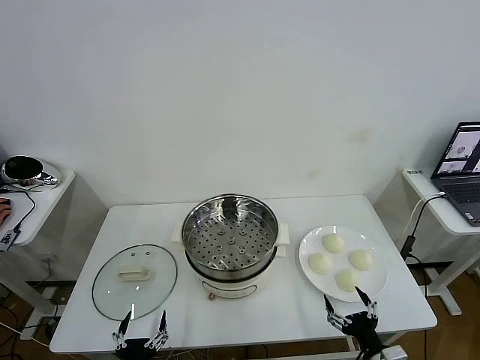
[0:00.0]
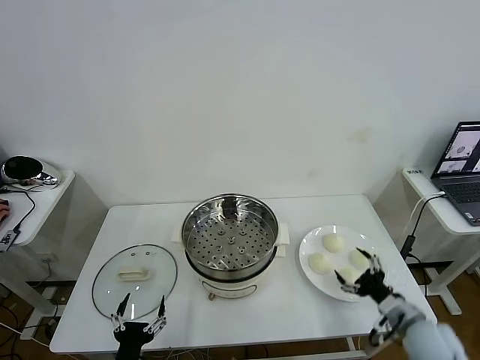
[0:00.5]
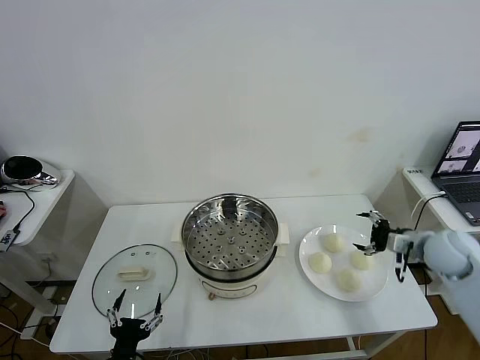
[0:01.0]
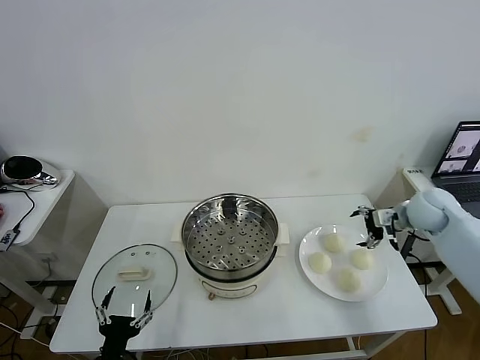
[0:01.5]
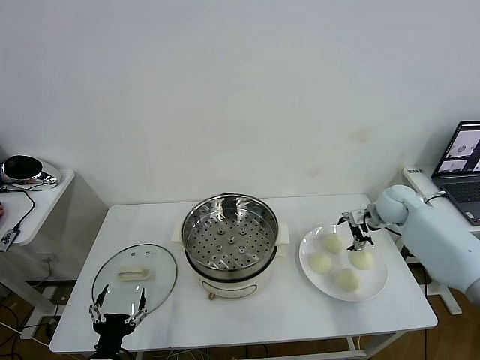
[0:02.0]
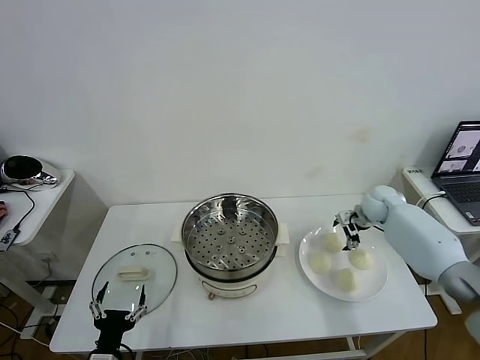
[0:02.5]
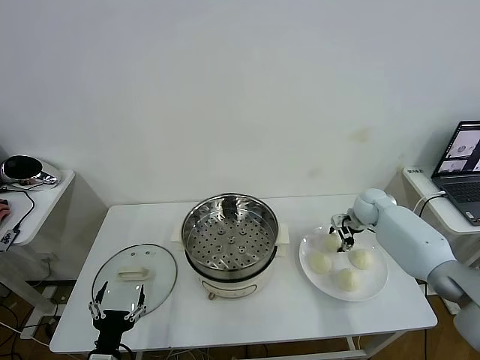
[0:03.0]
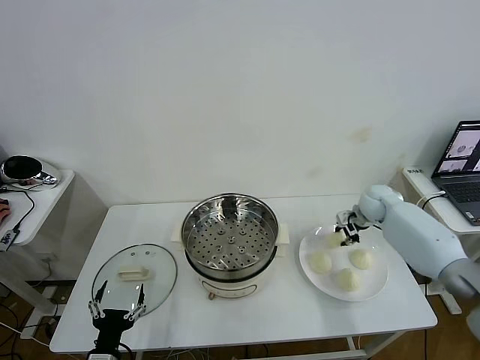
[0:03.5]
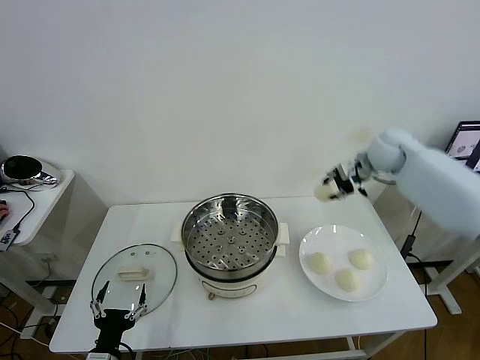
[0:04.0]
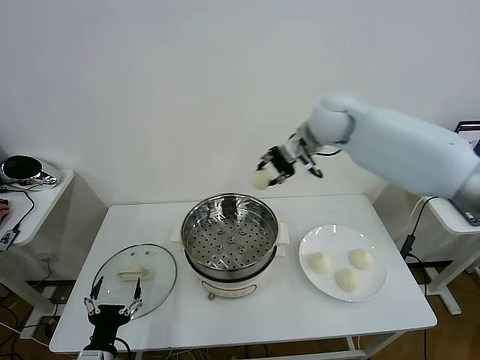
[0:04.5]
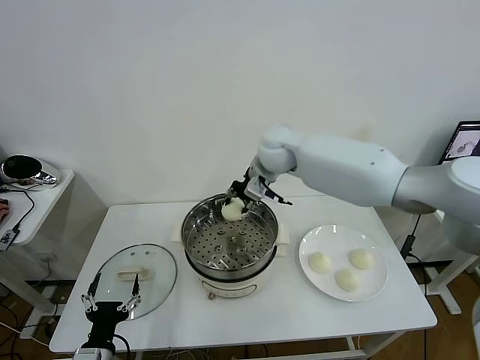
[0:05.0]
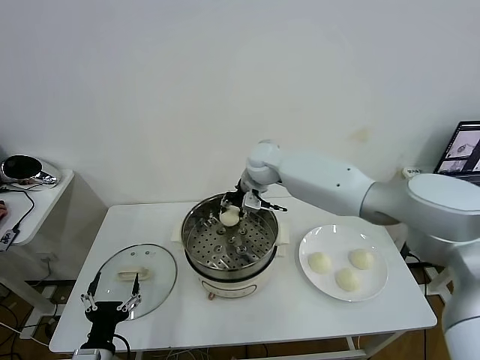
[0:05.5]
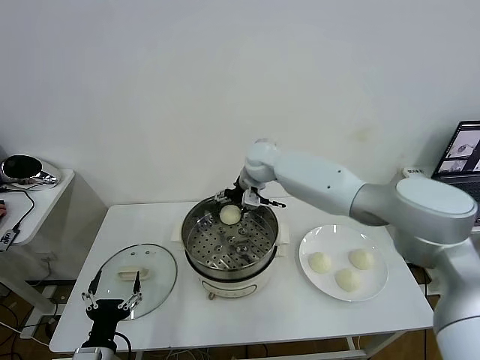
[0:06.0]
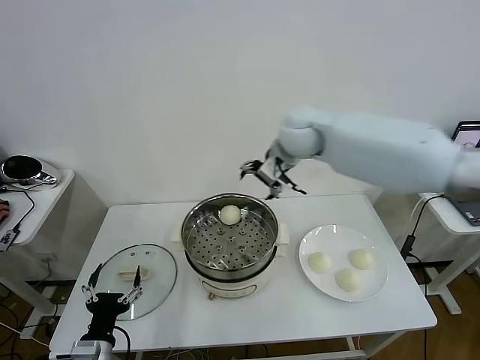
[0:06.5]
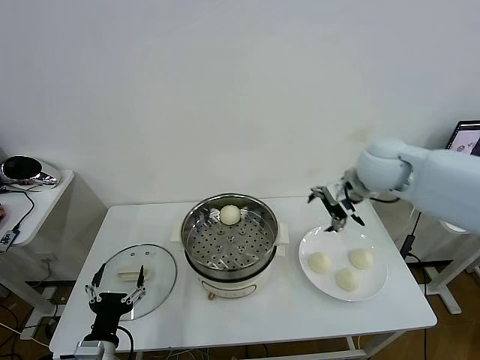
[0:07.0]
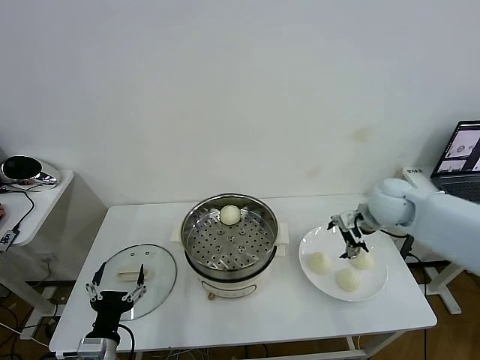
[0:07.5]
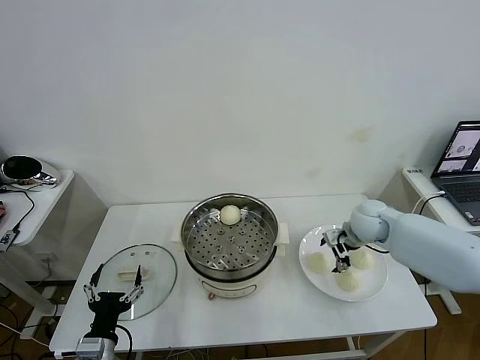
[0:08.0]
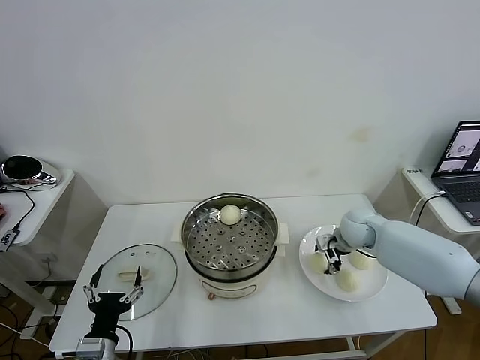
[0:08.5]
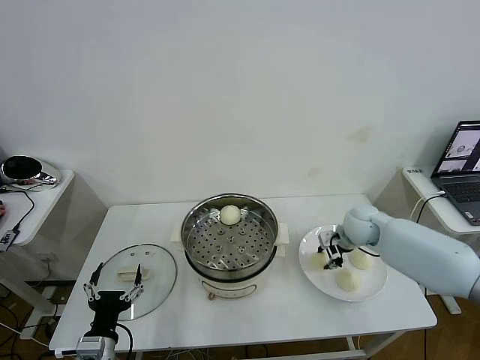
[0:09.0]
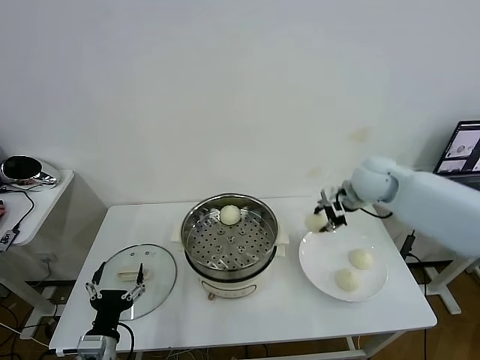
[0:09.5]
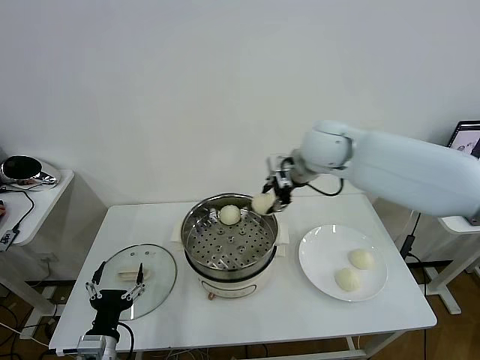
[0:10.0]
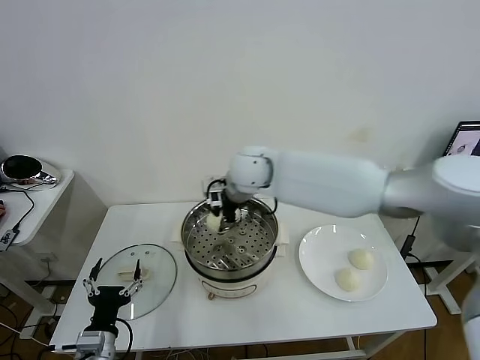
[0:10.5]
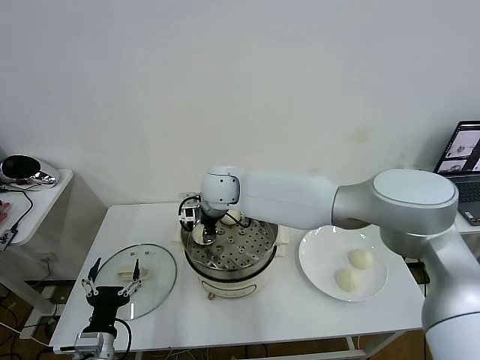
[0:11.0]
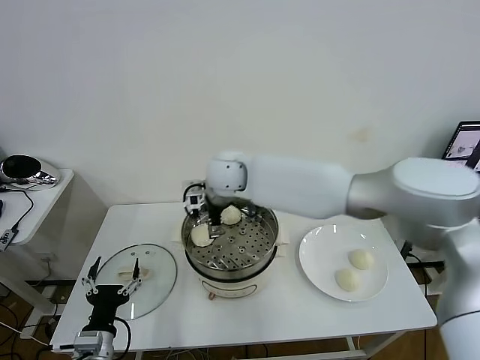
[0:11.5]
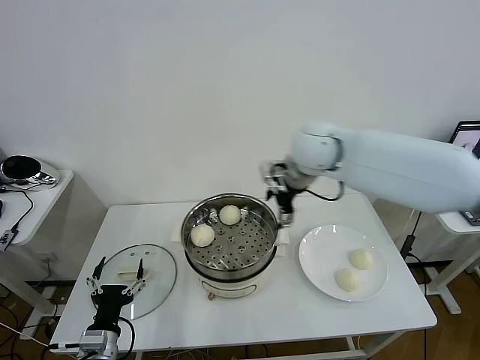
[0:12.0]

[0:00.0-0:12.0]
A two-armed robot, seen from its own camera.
Task of the whole recording: take steamed baozi put them in steamer then cover it.
Step, 0:00.0 to 0:03.0: Grasp the baozi in the plate with right gripper.
Step, 0:03.5 to 0:05.5: Place the baozi on the steamer with right gripper.
Step, 0:06.0 to 0:08.5: Grasp the baozi in the plate with right gripper.
Step, 0:09.0 to 0:11.0: Place the baozi on the steamer with right gripper.
0:02.0 to 0:04.0: The right gripper heads upward and to the left, covering roughly 20 cm, and closes.
0:04.0 to 0:06.0: The right gripper travels to the left by roughly 25 cm, and opens.
0:06.0 to 0:08.0: The right gripper shifts approximately 30 cm to the right, downward and backward.
0:08.0 to 0:10.0: The right gripper heads upward and to the left, covering approximately 25 cm, and closes up.
0:10.0 to 0:12.0: The right gripper moves some 20 cm to the left and comes back, and opens up.

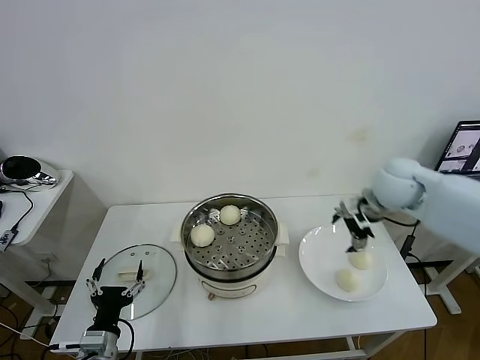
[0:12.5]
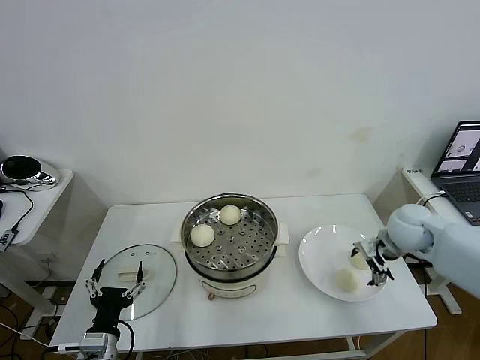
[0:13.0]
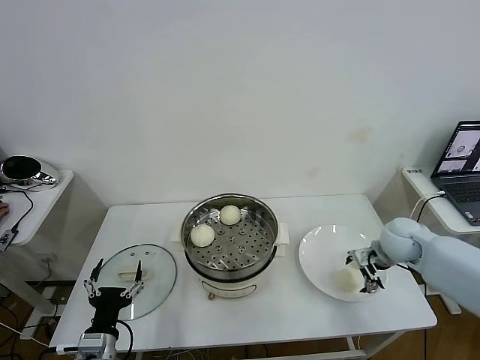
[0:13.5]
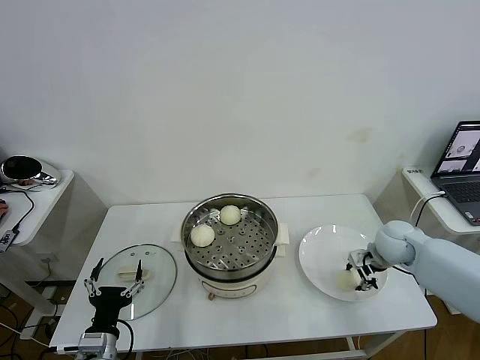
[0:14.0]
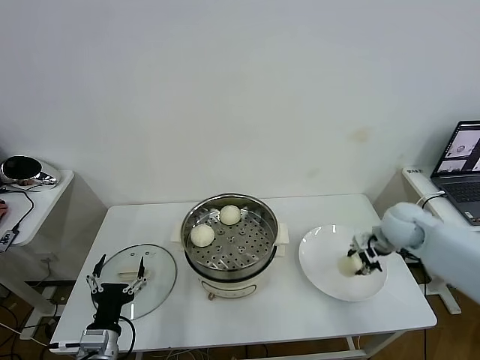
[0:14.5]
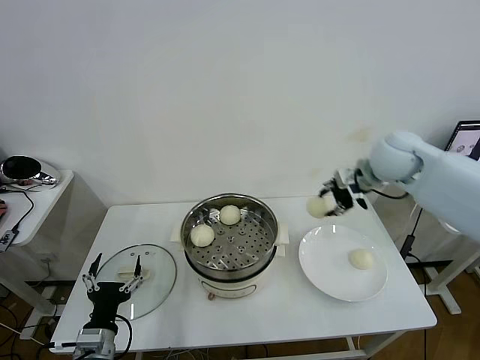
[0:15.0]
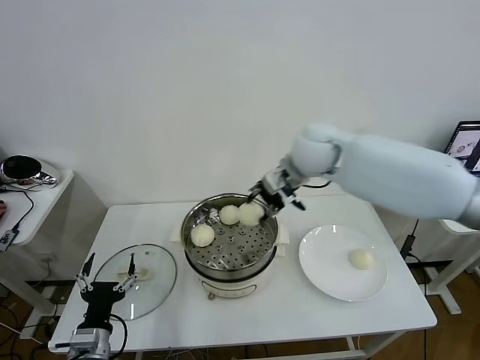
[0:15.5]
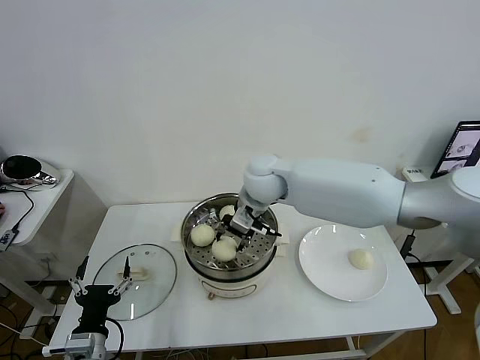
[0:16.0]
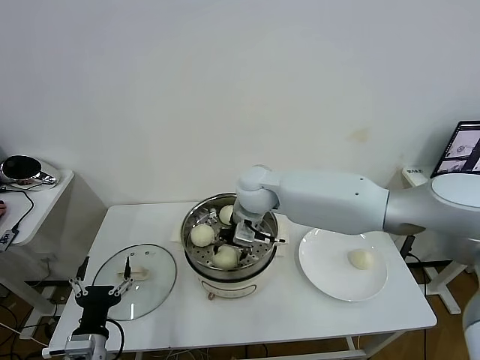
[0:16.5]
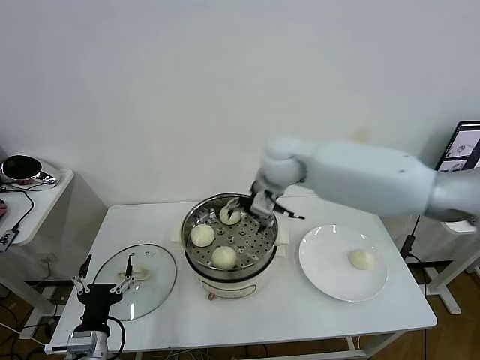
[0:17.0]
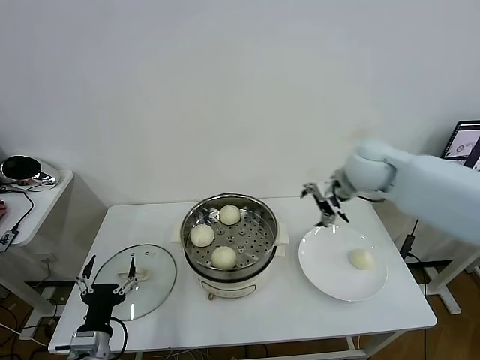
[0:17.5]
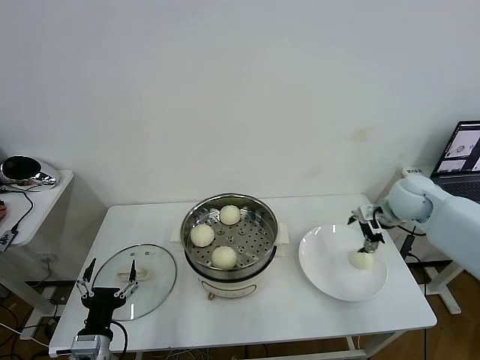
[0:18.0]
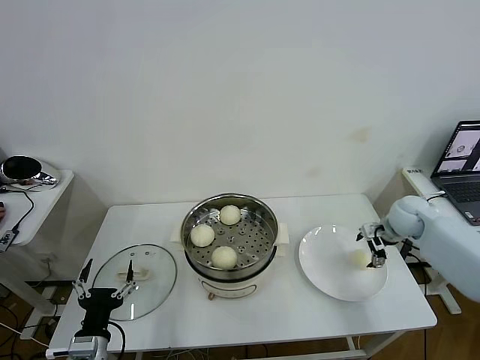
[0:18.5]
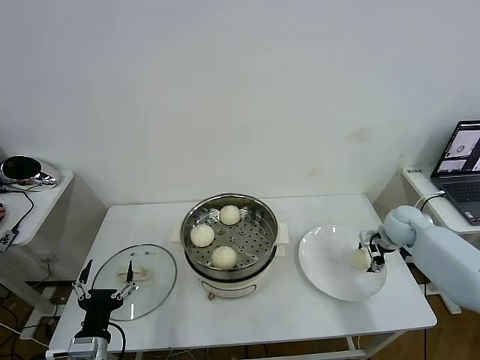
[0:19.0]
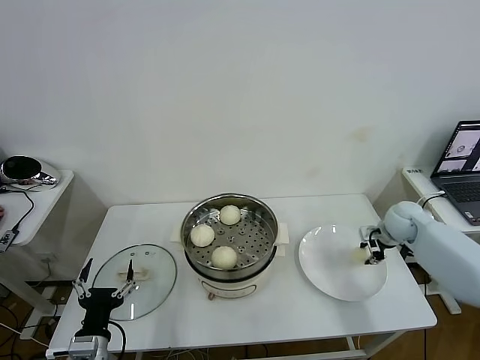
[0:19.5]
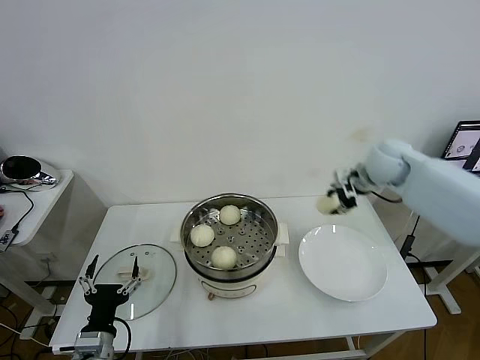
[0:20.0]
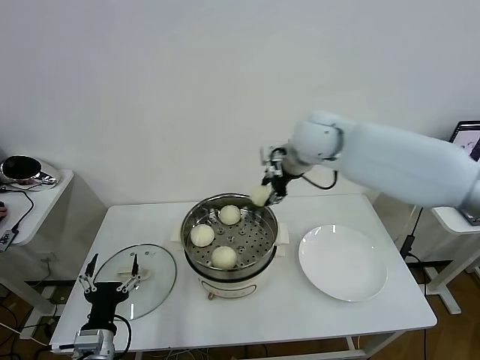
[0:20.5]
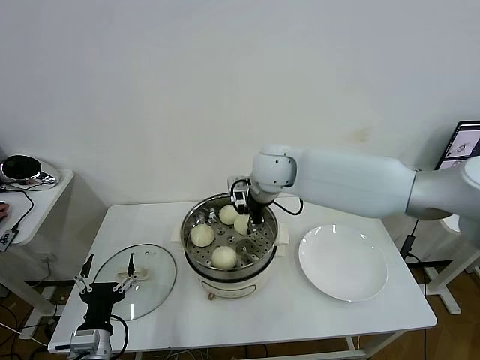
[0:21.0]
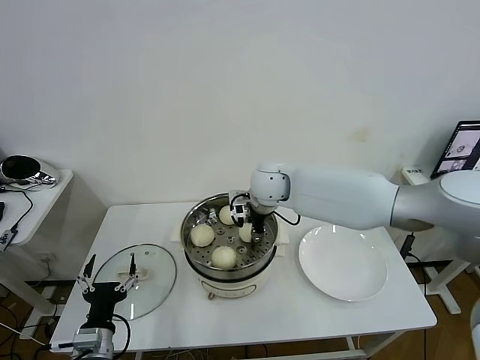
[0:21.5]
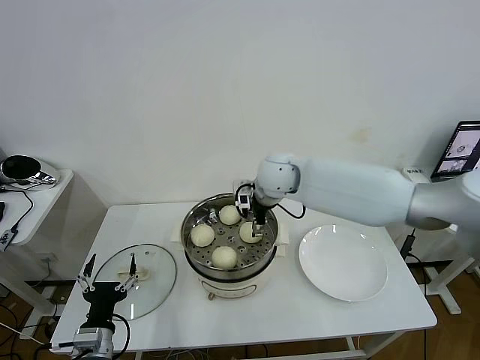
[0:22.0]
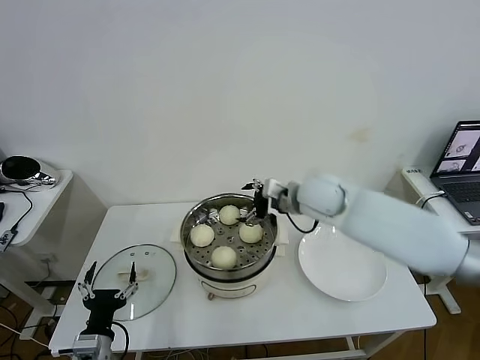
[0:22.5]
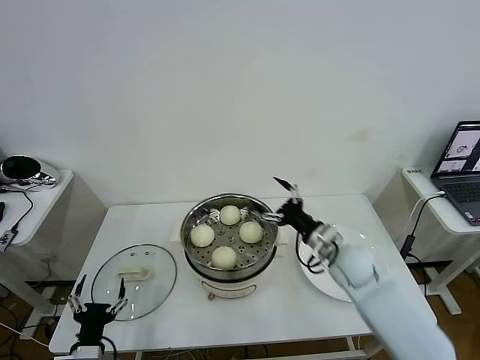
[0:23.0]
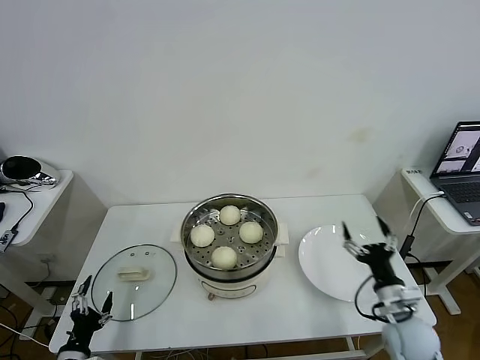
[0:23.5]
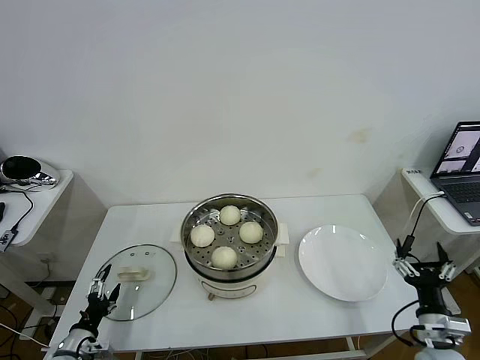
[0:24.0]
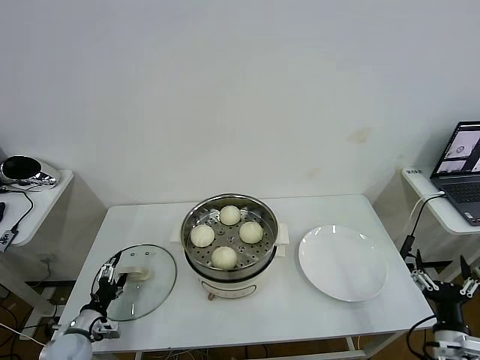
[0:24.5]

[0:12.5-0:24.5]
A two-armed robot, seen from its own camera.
Task of the whole recording: take steamed baozi put them in steamer then cover it.
Step, 0:12.5 to 0:14.0: Grasp the baozi in the plate with right gripper.
Step, 0:14.5 to 0:16.5: Place the baozi on the steamer with right gripper.
Step, 0:17.0 to 0:19.0: Grasp the baozi in the plate with right gripper.
Step, 0:19.5 to 0:21.5: Place the baozi on the steamer with right gripper.
0:12.5 to 0:14.5: The right gripper shifts about 10 cm downward, and closes its fingers.
0:14.5 to 0:16.5: The right gripper is displaced to the left by about 35 cm, and opens.
0:16.5 to 0:18.5: The right gripper moves to the right, approximately 40 cm, and opens.
0:18.5 to 0:20.5: The right gripper travels to the left and upward by approximately 35 cm, and closes its fingers.
0:20.5 to 0:22.5: The right gripper heads downward and backward, covering about 10 cm, and opens up.
0:22.5 to 0:24.5: The right gripper moves backward, to the right and downward, about 40 cm. The left gripper moves to the left, downward and forward, roughly 15 cm.

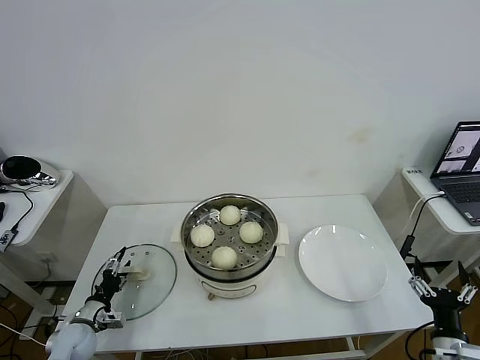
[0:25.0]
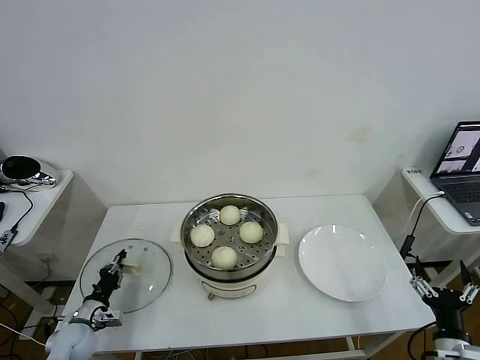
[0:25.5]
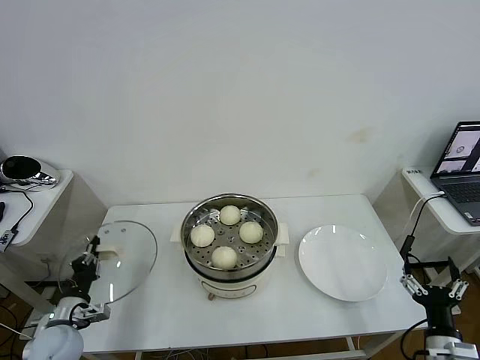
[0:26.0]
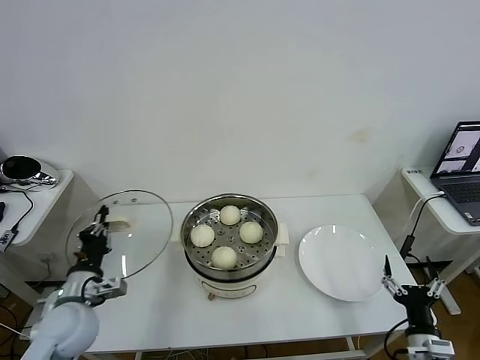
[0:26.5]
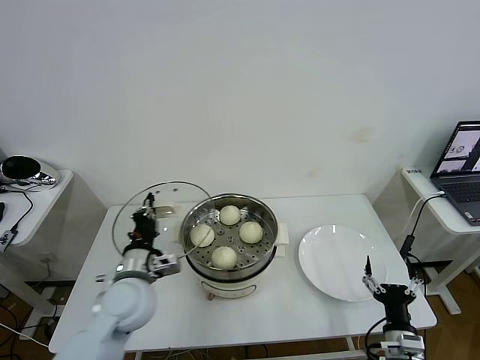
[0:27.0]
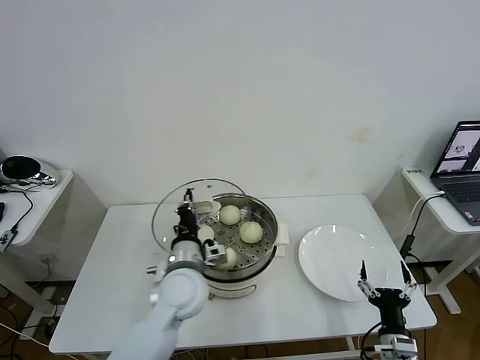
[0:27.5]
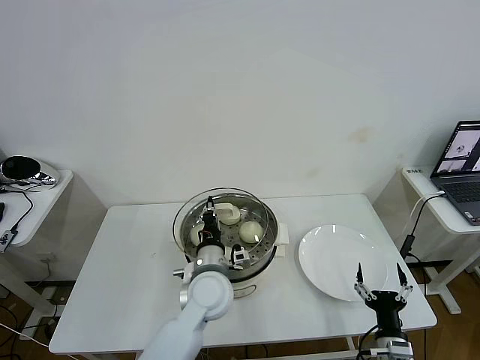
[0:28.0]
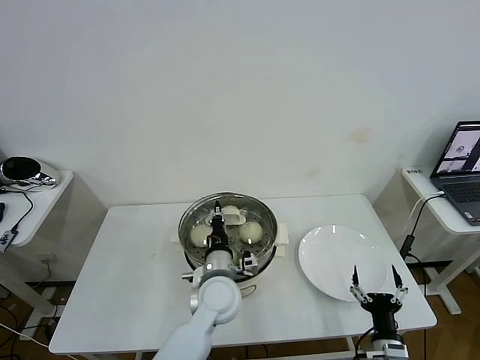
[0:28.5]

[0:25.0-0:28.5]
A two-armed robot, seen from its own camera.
Task of the whole recording: take steamed baozi put them in steamer then cover it.
0:25.0 to 0:27.0: The right gripper moves to the left, roughly 5 cm; the left gripper shifts about 25 cm upward and to the right, and closes up.
0:27.0 to 0:28.5: The left gripper travels to the right by some 20 cm.
